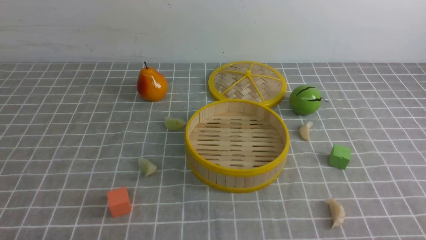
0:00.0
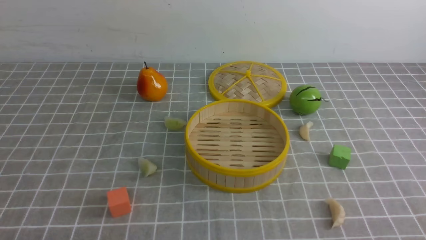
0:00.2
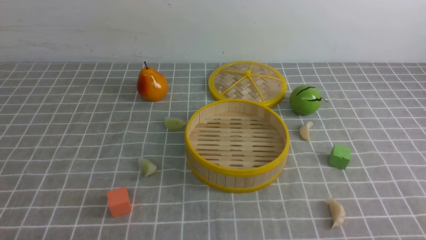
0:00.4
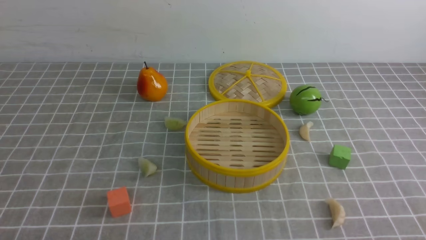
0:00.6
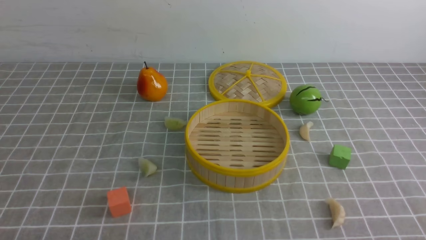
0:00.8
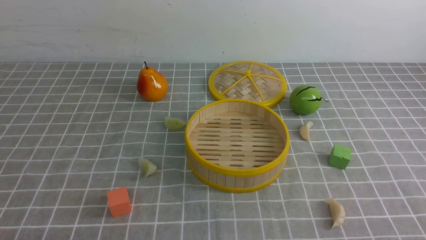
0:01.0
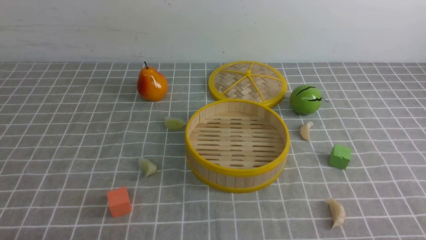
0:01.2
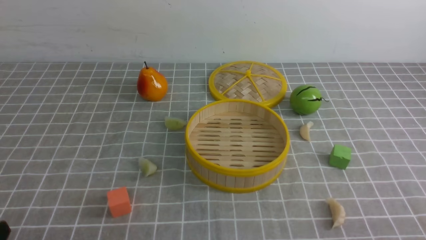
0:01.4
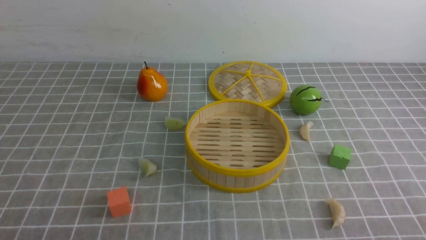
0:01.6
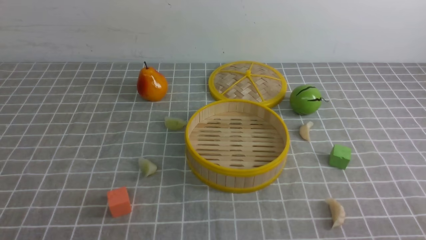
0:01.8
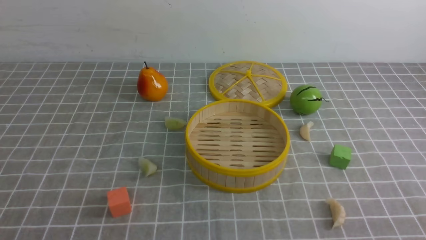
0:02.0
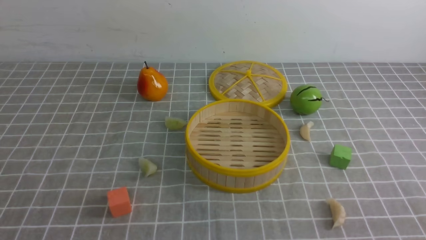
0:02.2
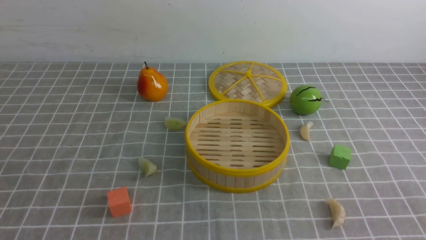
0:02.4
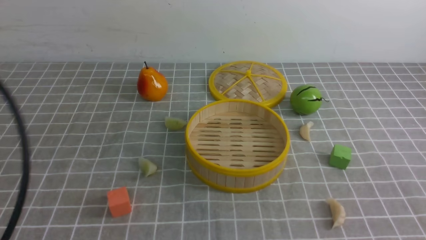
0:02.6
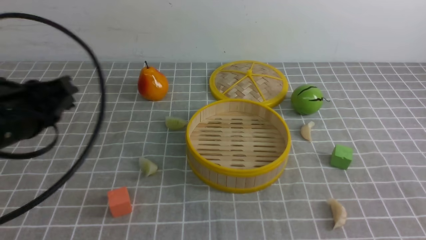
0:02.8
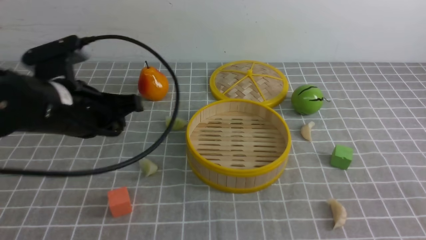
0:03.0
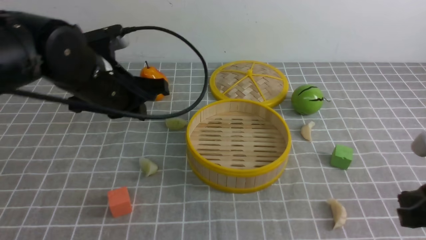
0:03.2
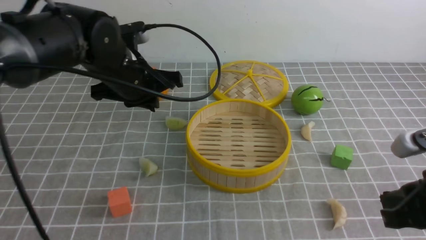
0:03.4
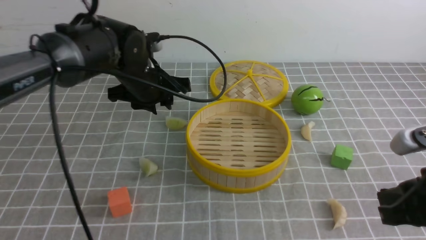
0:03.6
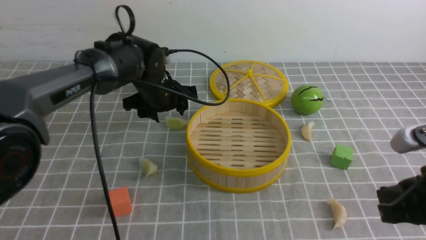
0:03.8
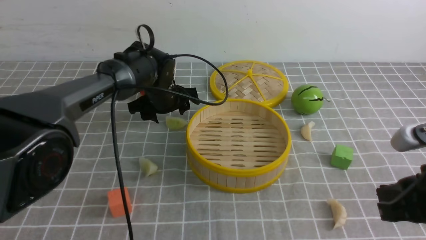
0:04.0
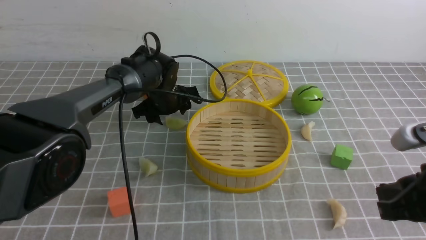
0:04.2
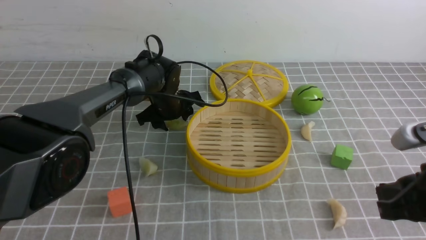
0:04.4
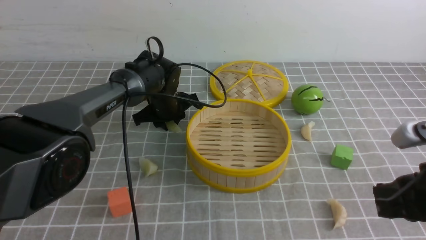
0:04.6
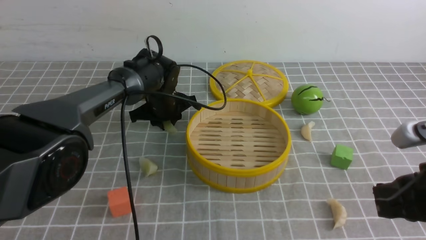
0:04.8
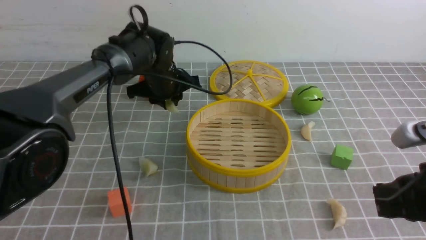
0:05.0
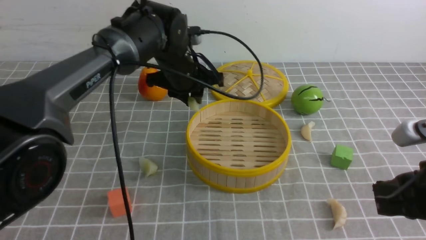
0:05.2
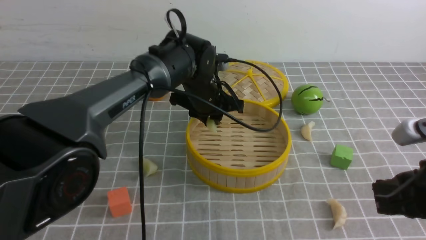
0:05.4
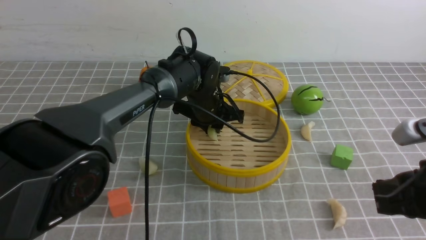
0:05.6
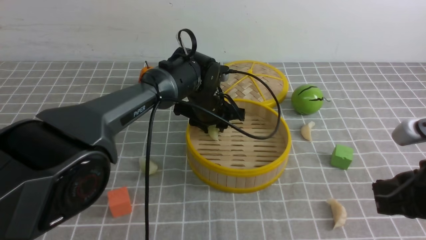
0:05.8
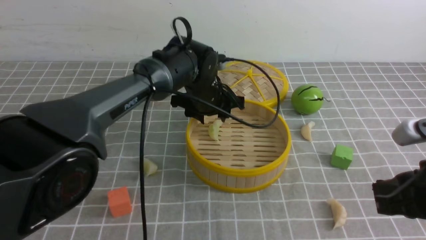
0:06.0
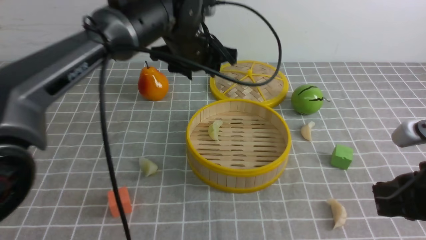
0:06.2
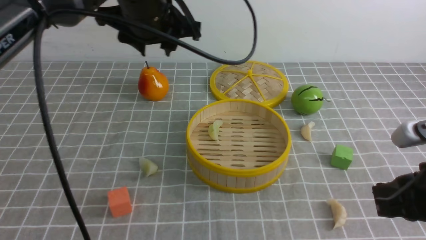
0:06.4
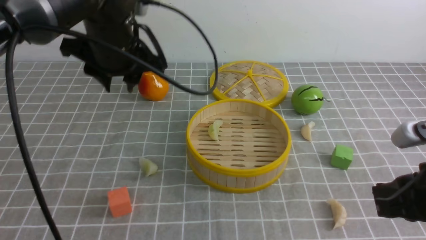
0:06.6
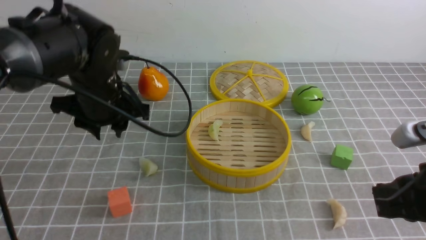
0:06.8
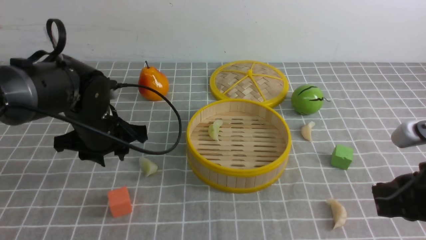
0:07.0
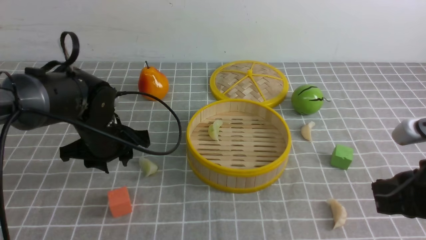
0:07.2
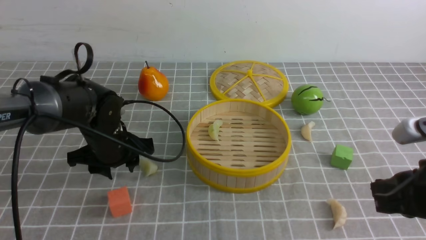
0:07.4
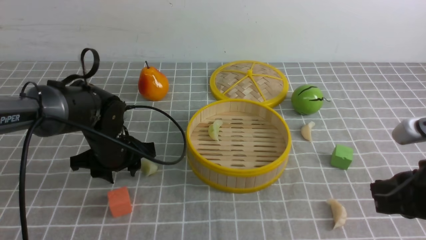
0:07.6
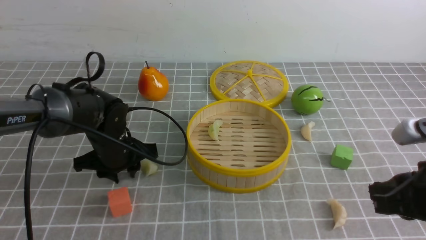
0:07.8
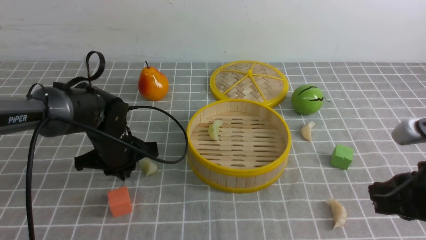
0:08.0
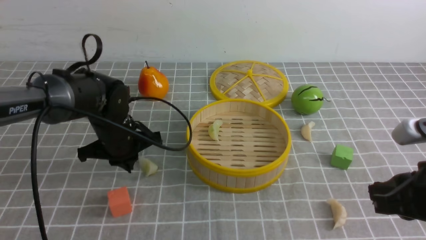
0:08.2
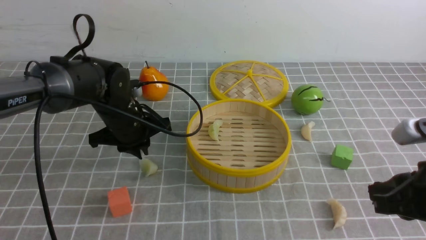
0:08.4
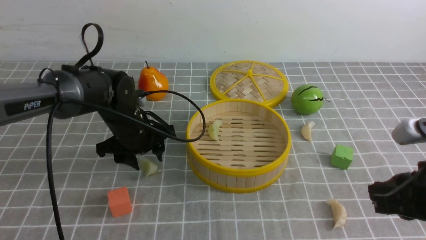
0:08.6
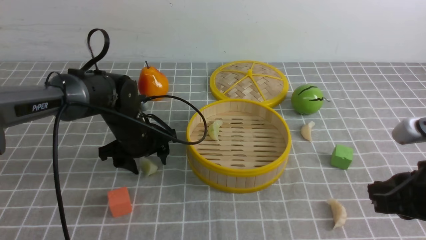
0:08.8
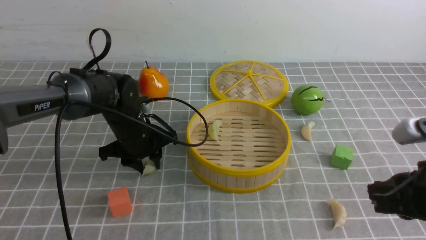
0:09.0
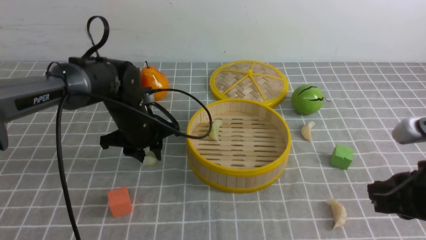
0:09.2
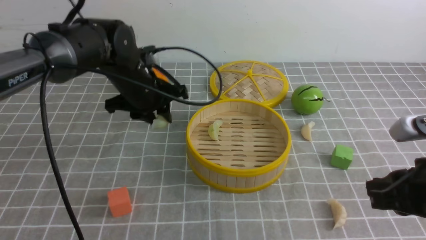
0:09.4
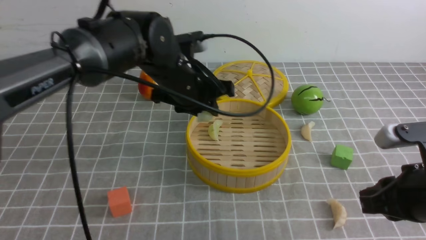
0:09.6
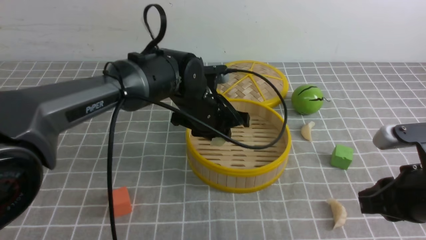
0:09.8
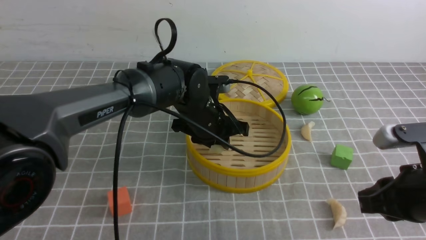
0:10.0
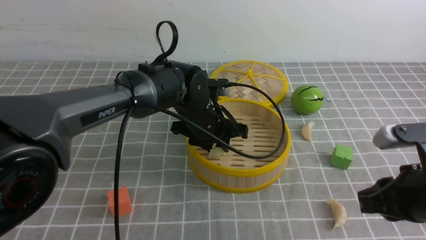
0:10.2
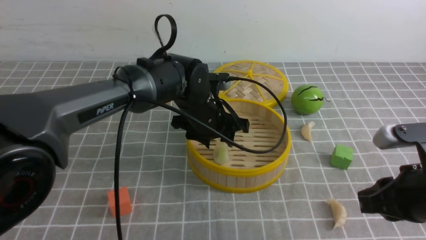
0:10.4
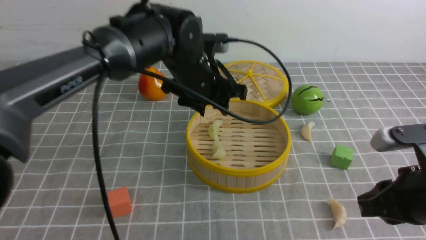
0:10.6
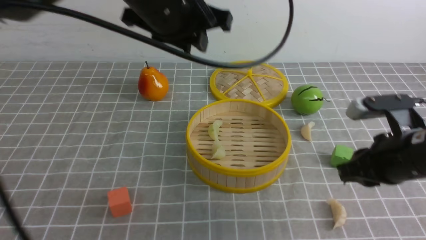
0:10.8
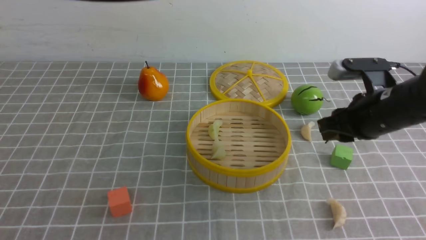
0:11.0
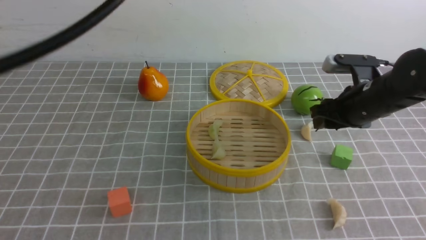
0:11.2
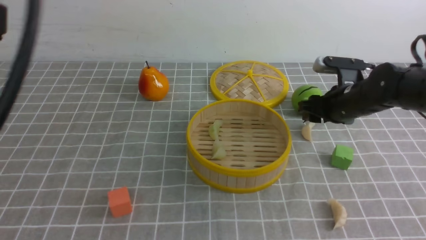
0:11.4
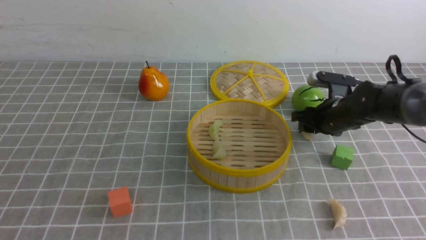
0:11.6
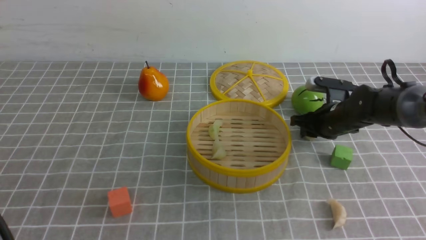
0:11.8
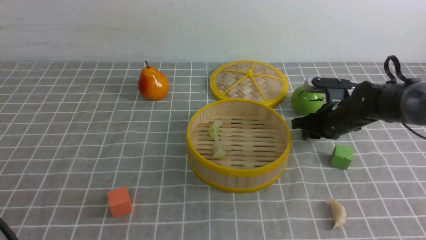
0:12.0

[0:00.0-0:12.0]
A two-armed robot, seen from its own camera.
Task of the whole recording: put the dumplings into the steamer on the table with the grey tablecloth.
Step, 0:00.0 to 0:04.8: use the left arm to grab a dumpling.
Step, 0:05.0 to 0:06.0: use the left arm to put the dumpling into the steamer.
Step, 0:06.2 to 0:09.2: use the left arm to grab a dumpling.
Step, 0:09.4 to 0:10.4: use the left arm to put the dumpling into the steamer.
0:01.6 to 0:03.0: The right gripper moves forward and upward, about 10 cm. The left gripper heads forward and upward, covering some 25 cm, and closes.
0:03.0 to 0:04.4: The right gripper moves roughly 5 cm. Meanwhile the left gripper goes about 25 cm forward and downward, and opens.
0:04.4 to 0:06.0: The left gripper goes up and down, approximately 10 cm each way, reversing 2 times, and closes, then reopens.
0:06.0 to 0:07.6: The left gripper heads to the left, downward and backward, covering about 20 cm.
0:07.6 to 0:09.0: The left gripper closes and opens again.
0:09.0 to 0:10.4: The left gripper travels to the right and upward by approximately 15 cm.
0:10.4 to 0:12.0: The right gripper moves forward, roughly 25 cm, and opens and closes again. The left gripper shifts roughly 40 cm backward and to the left, and closes up.

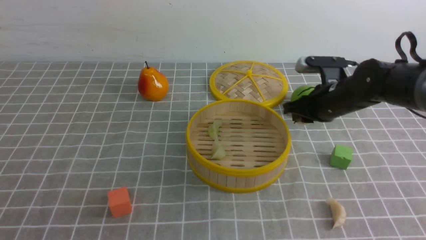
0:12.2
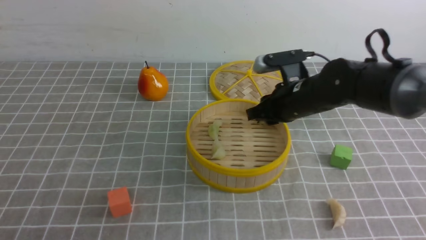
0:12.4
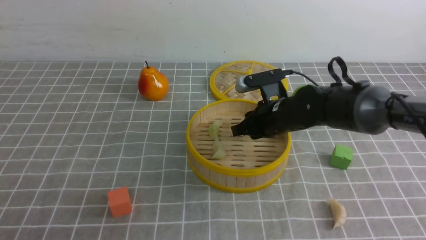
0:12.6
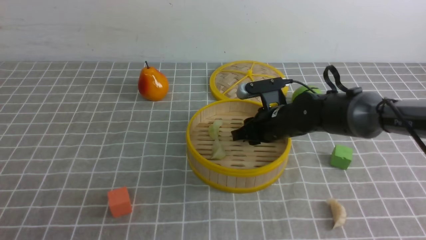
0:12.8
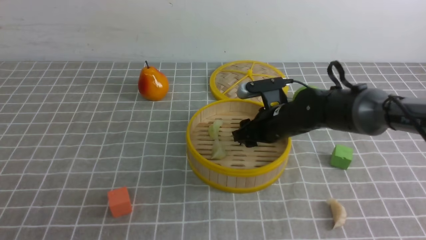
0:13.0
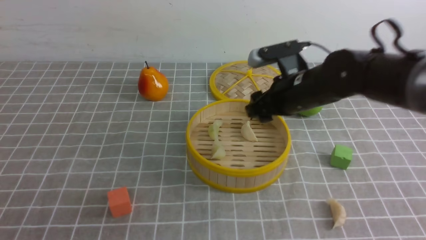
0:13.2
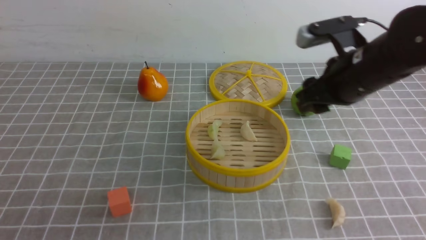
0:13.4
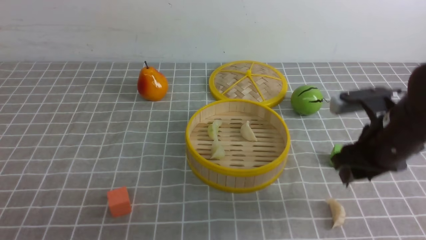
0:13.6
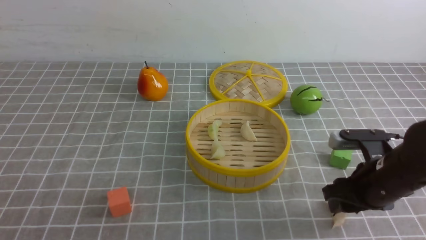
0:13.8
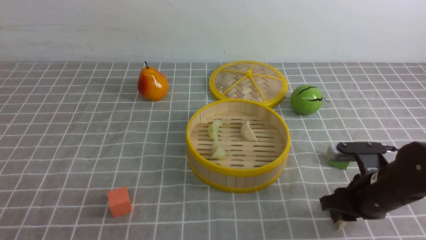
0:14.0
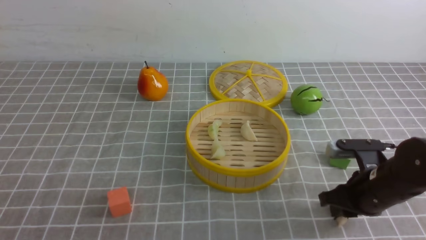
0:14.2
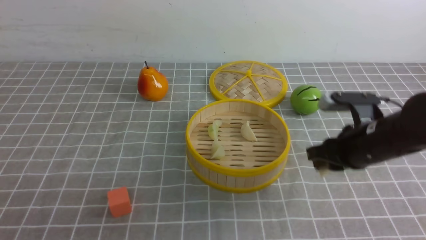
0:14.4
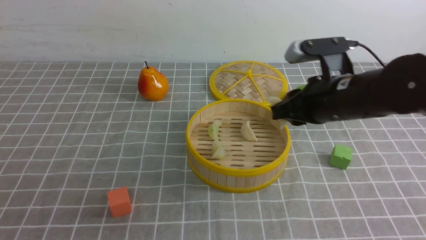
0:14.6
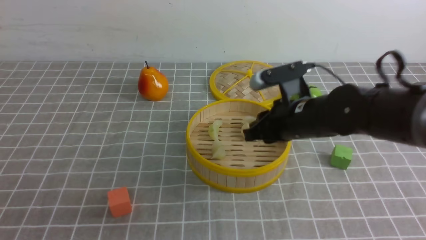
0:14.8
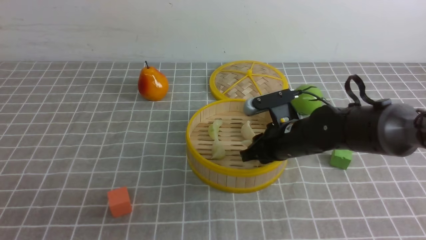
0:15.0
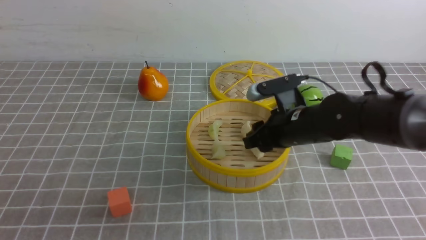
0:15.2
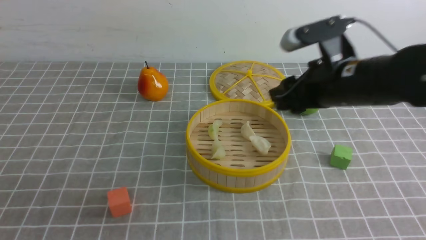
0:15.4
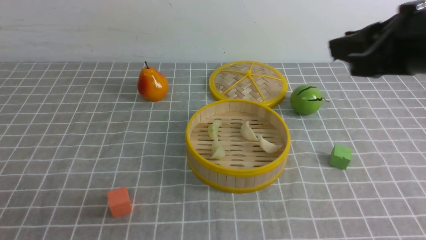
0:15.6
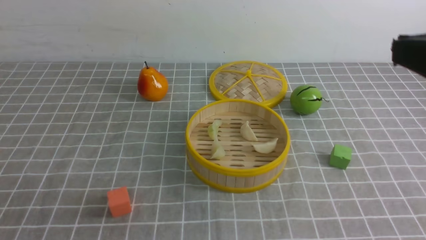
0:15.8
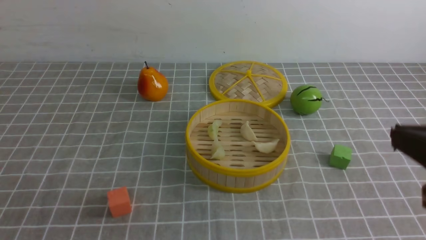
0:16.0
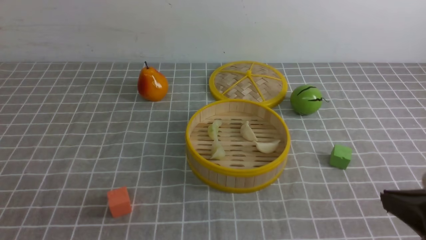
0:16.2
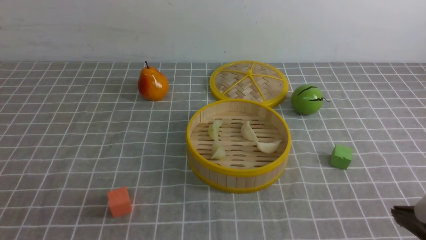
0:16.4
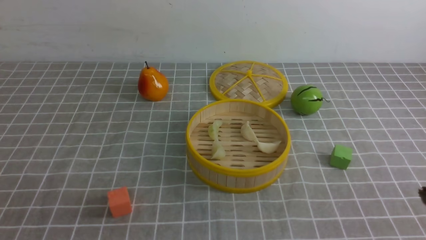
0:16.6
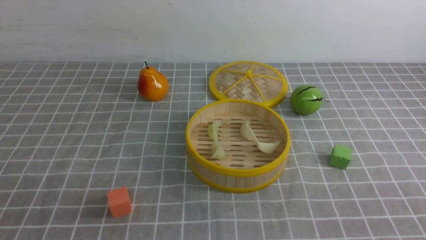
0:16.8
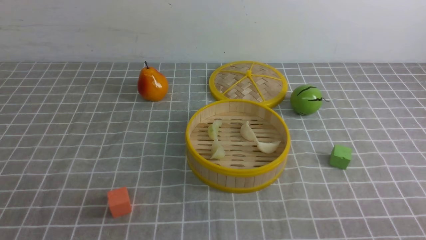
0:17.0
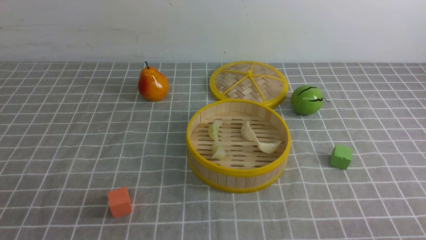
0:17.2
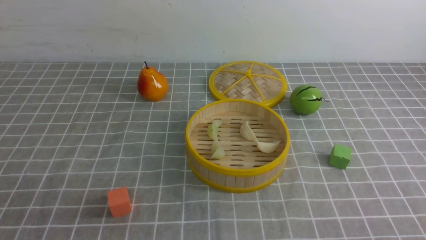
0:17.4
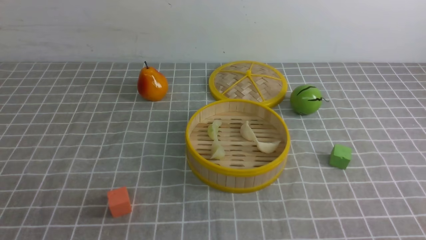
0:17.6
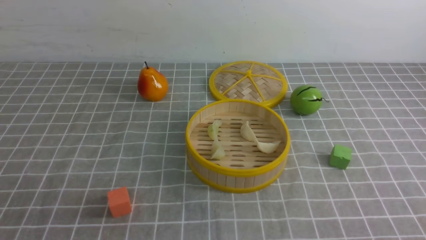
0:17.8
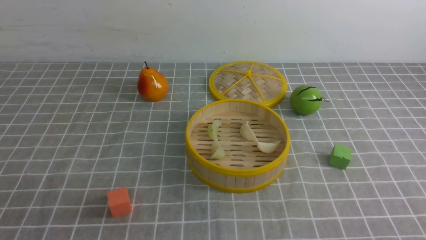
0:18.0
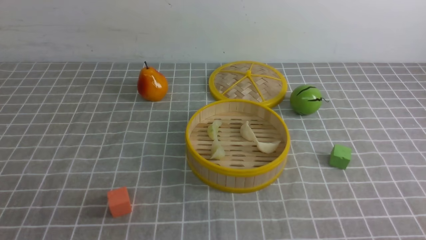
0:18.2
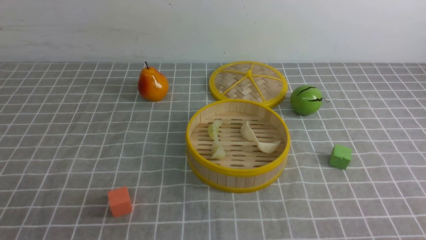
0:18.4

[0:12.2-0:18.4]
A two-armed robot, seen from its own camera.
Task of the whole recording: put the dumplings into the steamer on the table with the grey tablecloth.
Step, 0:12.2 to 0:13.2: use the right arm to put the dumpling into the steamer.
Step, 0:13.4 to 0:14.2: use the right arm to grab a dumpling.
Step, 0:14.4 to 0:15.4: use the right arm to put the dumpling into the steamer.
0:12.2 to 0:13.8: The right gripper heads backward, covering some 15 cm, and opens.
0:13.8 to 0:15.4: The right gripper swings up and down, approximately 15 cm each way, with 2 reversals.
0:15.4 to 0:16.8: The right gripper is displaced backward and to the right by roughly 25 cm, and closes its fingers.
